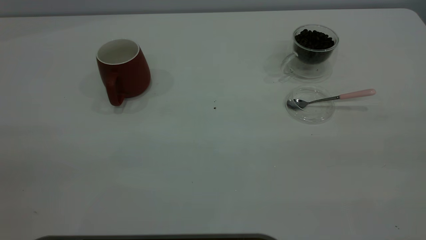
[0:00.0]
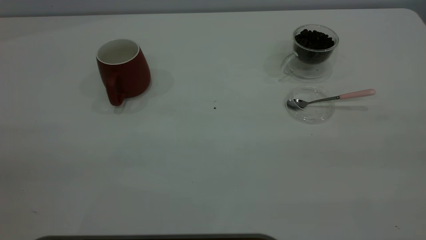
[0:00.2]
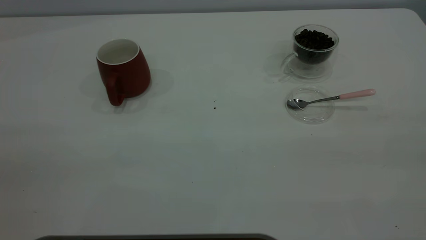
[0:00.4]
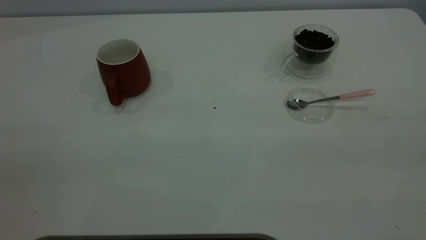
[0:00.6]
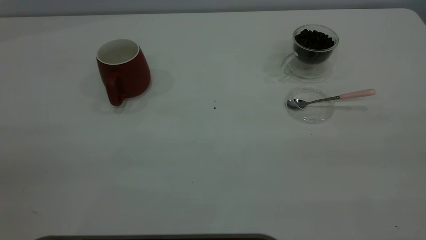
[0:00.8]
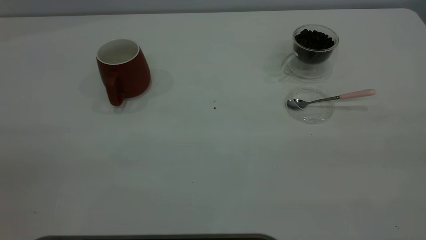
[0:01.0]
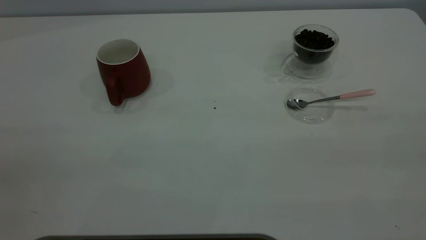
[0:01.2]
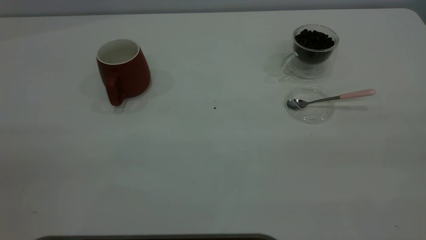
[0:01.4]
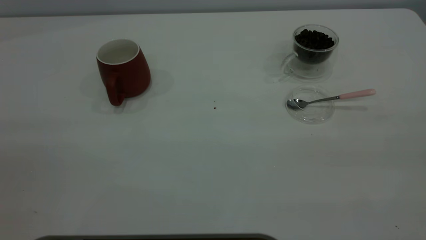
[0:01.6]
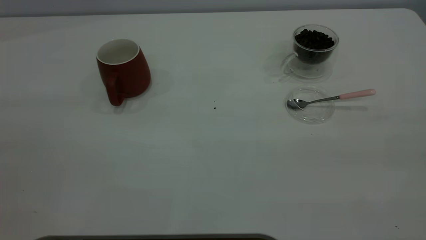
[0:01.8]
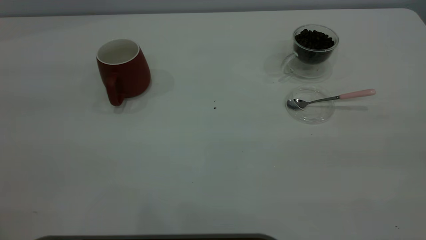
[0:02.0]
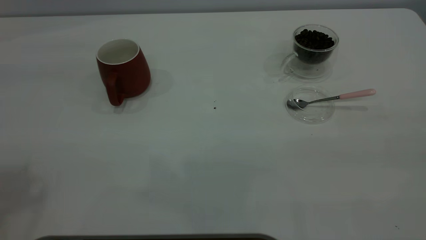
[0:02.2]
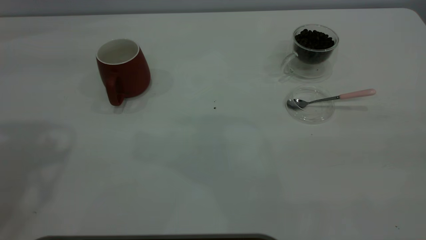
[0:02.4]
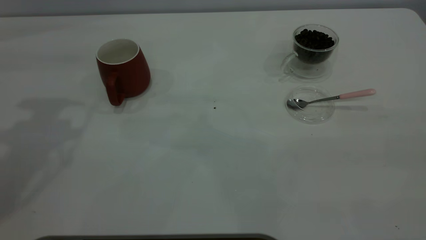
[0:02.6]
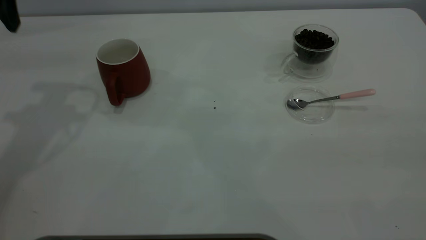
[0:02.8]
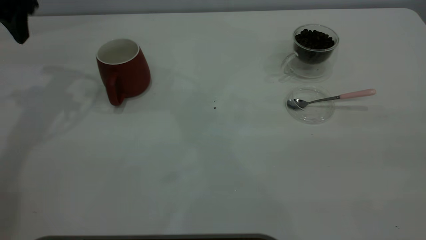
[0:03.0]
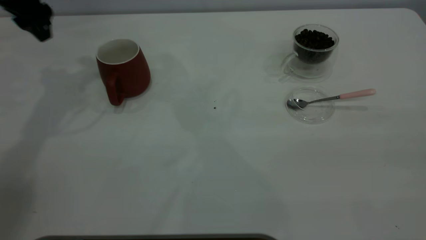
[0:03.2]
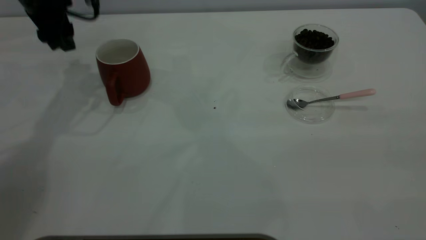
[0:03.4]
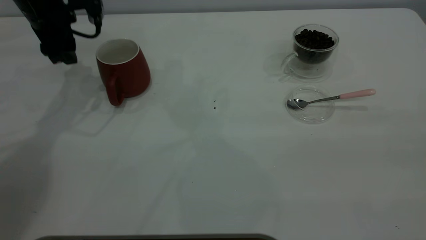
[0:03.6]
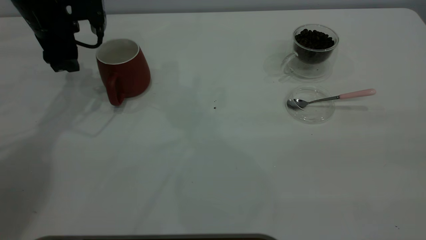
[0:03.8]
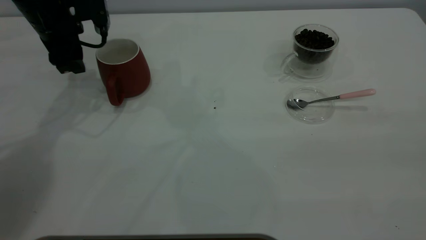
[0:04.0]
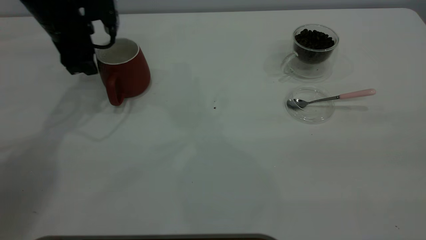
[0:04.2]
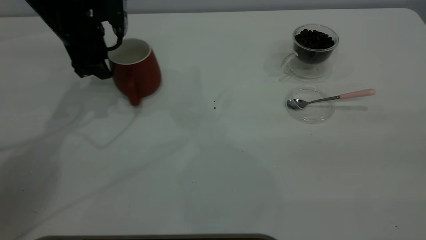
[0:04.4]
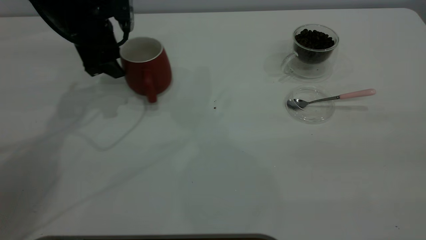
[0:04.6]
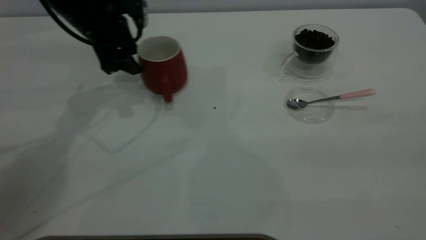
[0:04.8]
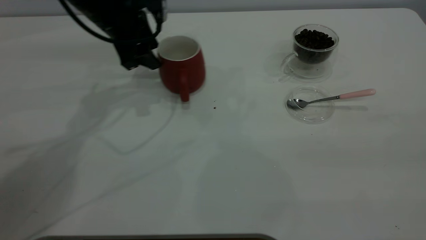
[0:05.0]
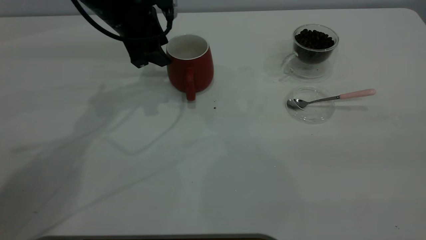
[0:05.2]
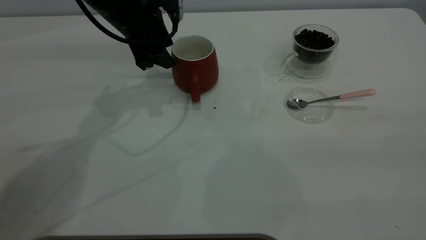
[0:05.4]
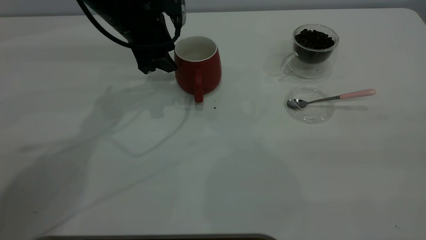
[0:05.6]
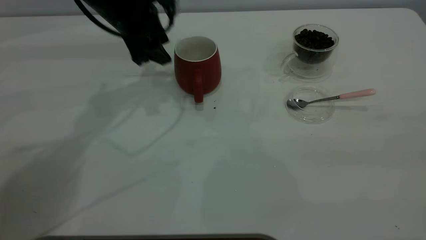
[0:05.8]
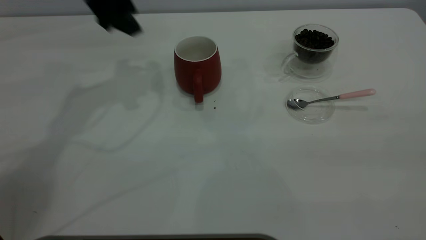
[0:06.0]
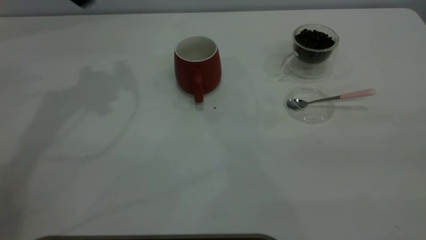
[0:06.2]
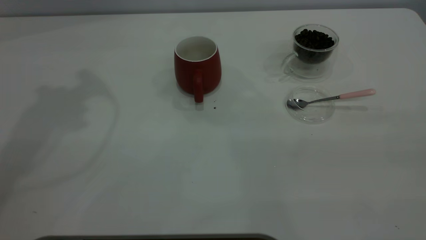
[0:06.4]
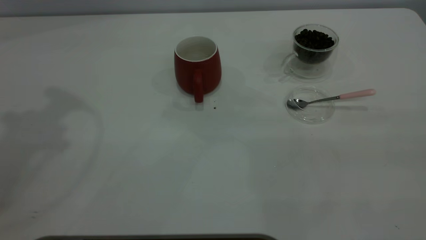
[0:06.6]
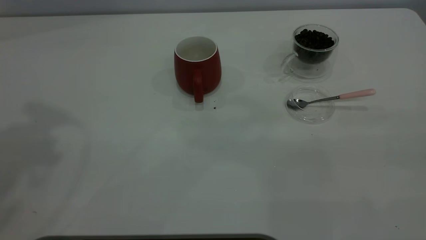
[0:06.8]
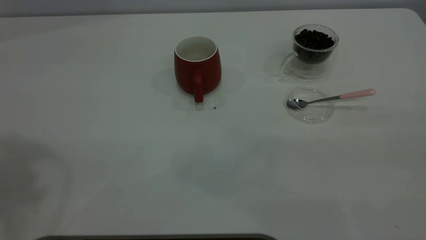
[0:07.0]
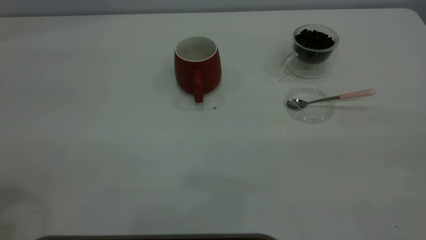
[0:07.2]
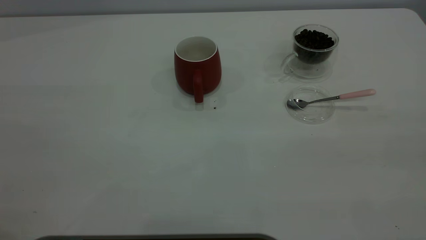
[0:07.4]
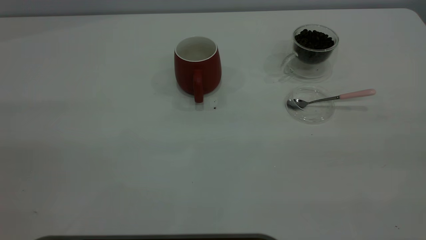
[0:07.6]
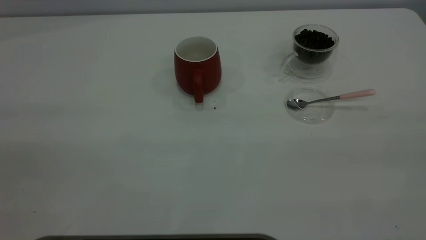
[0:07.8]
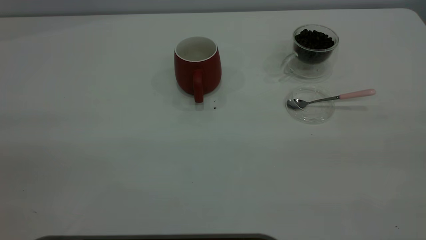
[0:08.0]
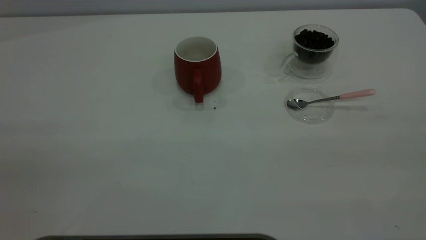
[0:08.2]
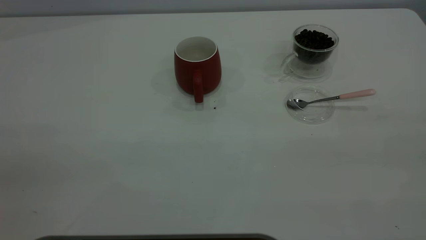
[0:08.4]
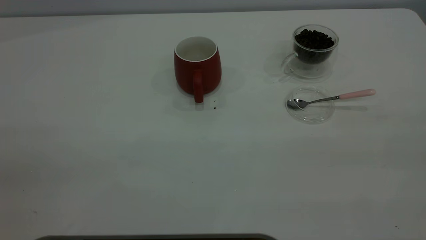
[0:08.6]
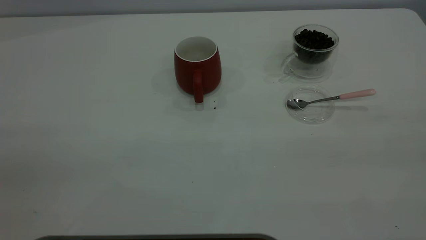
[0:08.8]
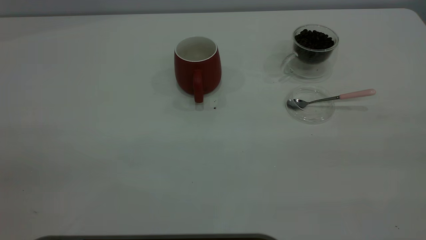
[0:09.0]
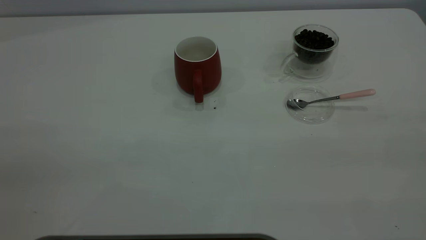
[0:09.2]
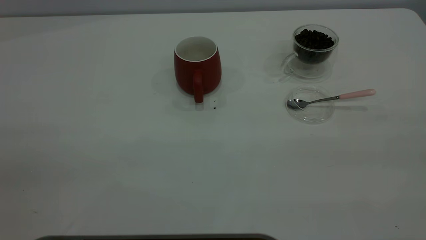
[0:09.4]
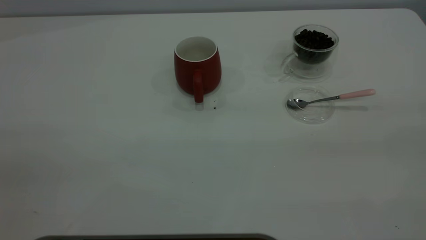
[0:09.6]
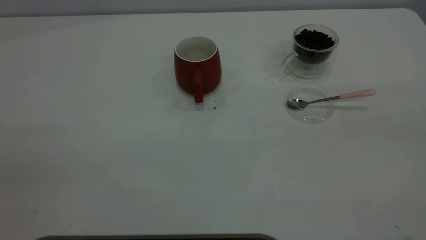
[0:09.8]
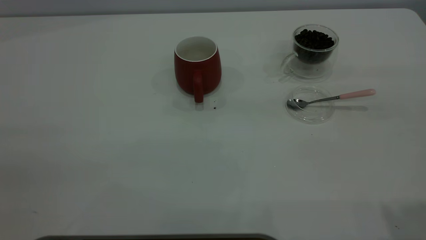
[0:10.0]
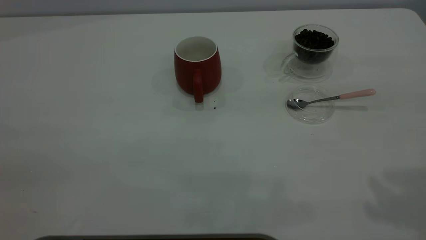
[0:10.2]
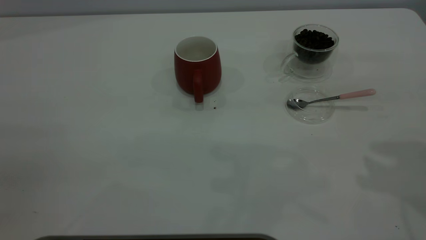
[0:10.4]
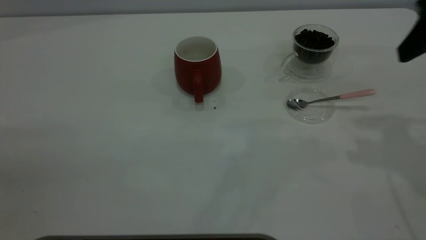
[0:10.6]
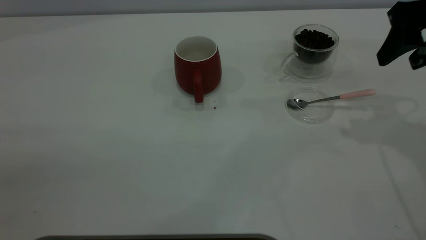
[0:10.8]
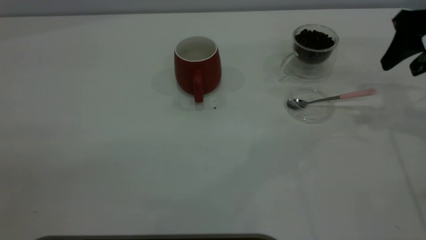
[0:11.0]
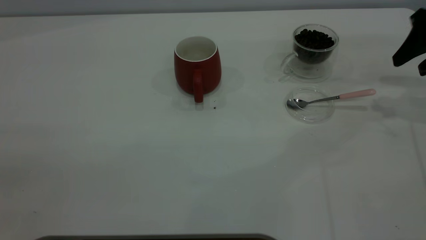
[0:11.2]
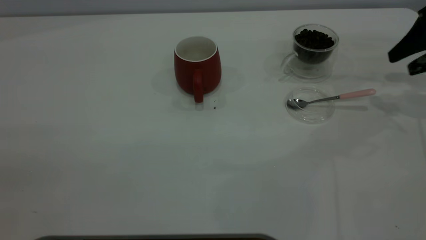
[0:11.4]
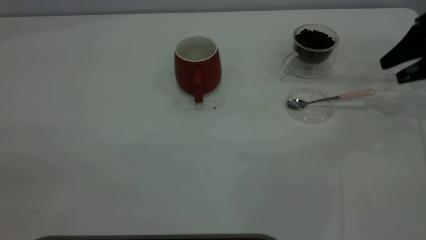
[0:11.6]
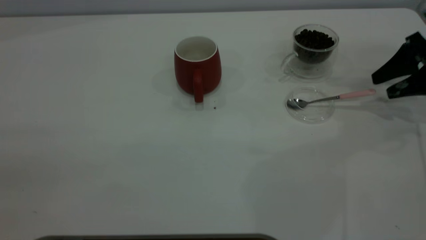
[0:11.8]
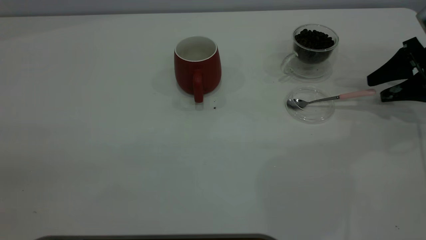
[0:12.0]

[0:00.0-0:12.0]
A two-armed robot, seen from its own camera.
Task of the whole recording: the left gripper place the red cup in the center of the table, the right gripper take the pink spoon from the cup lid and scoop out the coffee beans from the coffee cup and put them into the red cup, the right gripper put the spoon back into the cup lid.
Step, 0:00.0 to 0:05.8: Move the cup to the center of view.
0:01.6 to 0:03.0: The left gripper travels forward by roughly 40 cm.
0:03.0 to 0:04.4: The left gripper is displaced downward and to the right by roughly 10 cm.
0:04.4 to 0:06.0: The left gripper goes roughly 10 cm upward.
0:06.0 to 0:07.6: The left gripper goes about 40 cm backward.
0:10.4 to 0:12.0: The right gripper is displaced downward, forward and to the right by about 25 cm.

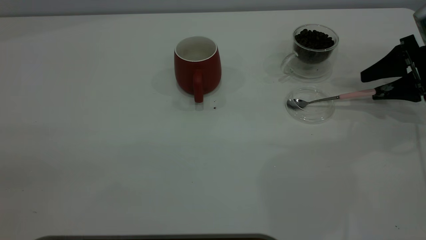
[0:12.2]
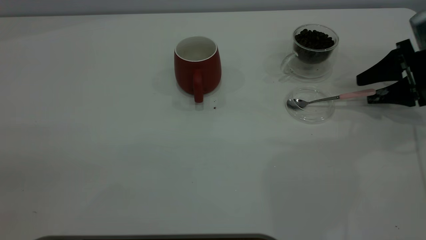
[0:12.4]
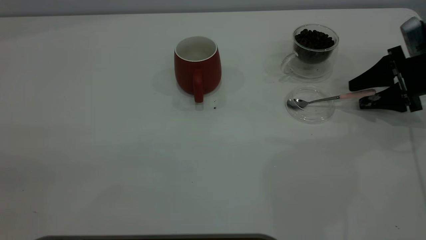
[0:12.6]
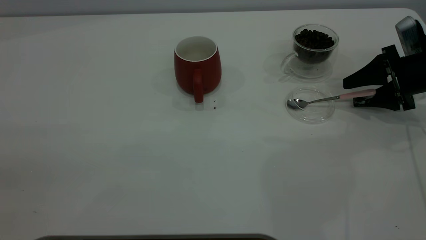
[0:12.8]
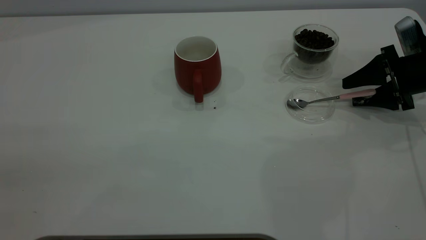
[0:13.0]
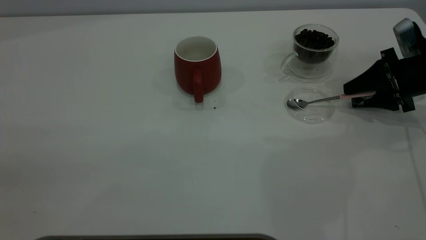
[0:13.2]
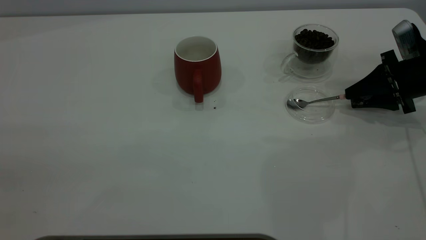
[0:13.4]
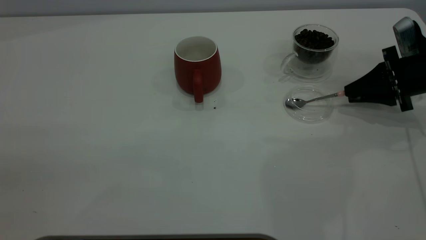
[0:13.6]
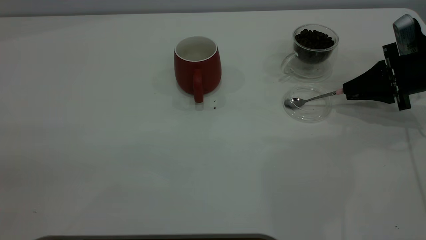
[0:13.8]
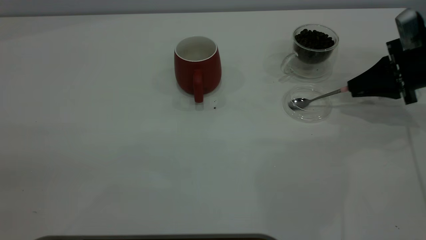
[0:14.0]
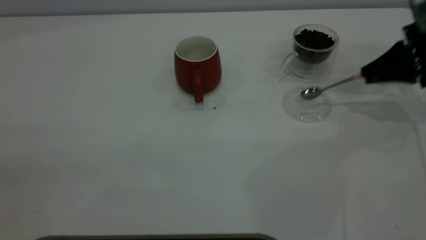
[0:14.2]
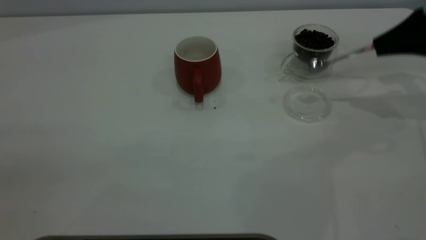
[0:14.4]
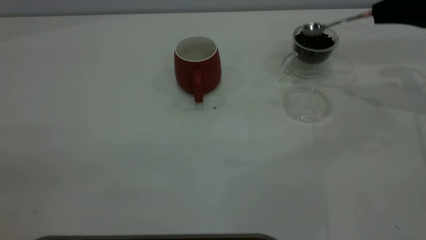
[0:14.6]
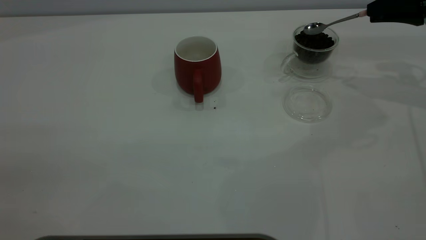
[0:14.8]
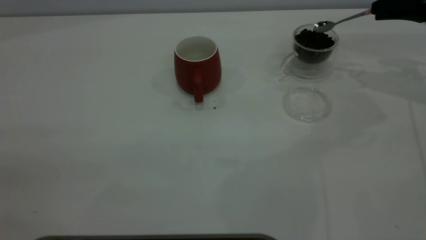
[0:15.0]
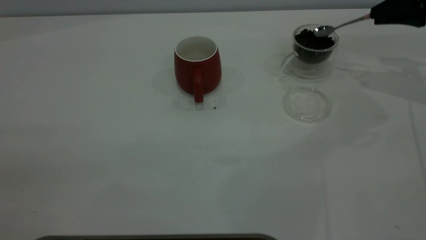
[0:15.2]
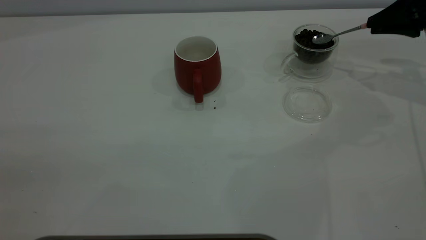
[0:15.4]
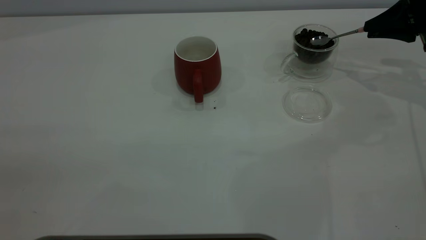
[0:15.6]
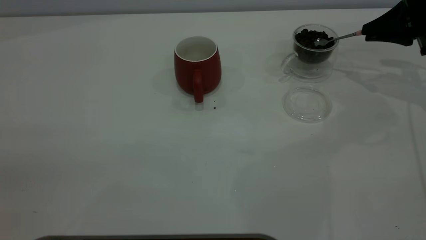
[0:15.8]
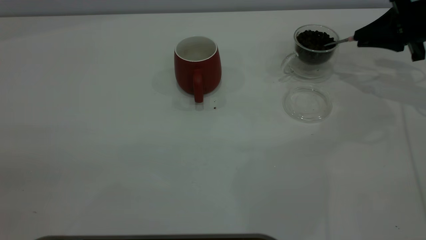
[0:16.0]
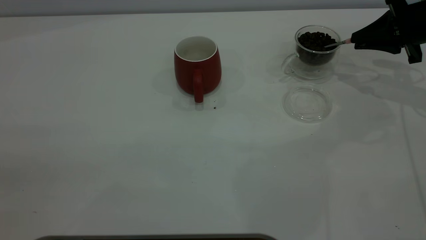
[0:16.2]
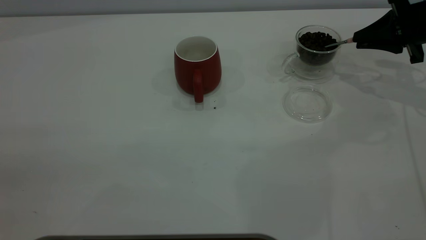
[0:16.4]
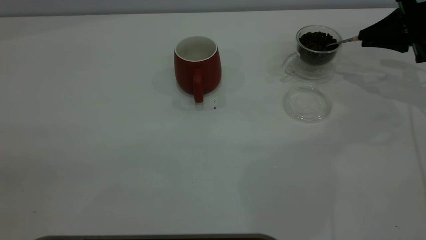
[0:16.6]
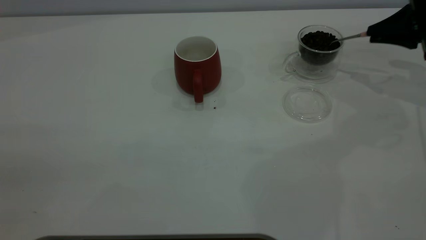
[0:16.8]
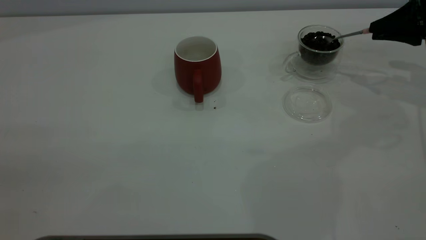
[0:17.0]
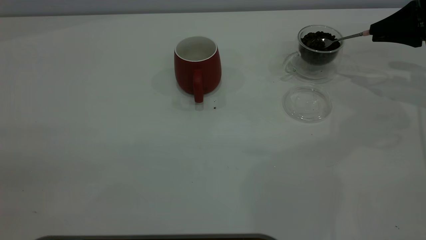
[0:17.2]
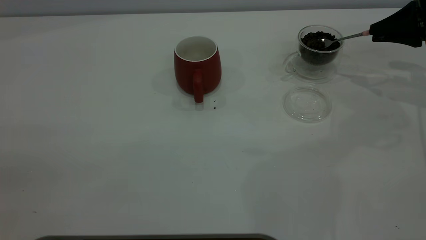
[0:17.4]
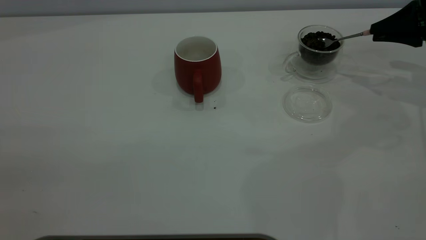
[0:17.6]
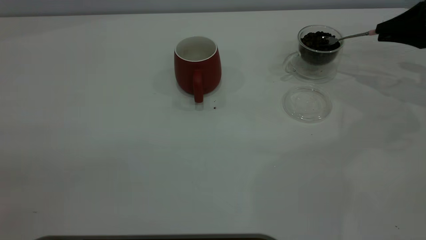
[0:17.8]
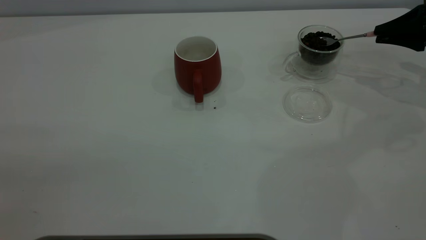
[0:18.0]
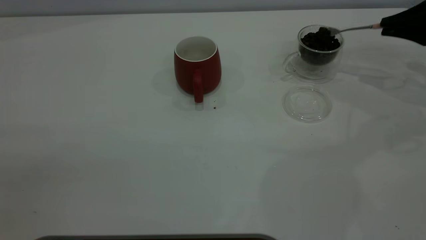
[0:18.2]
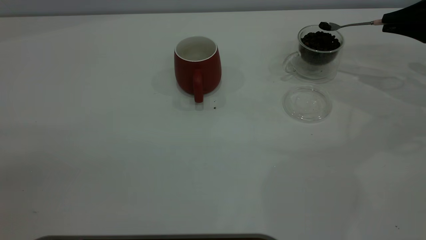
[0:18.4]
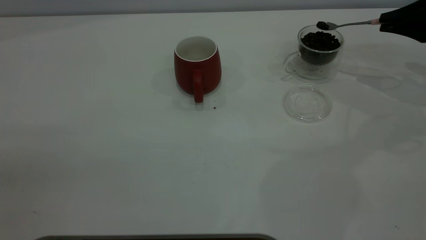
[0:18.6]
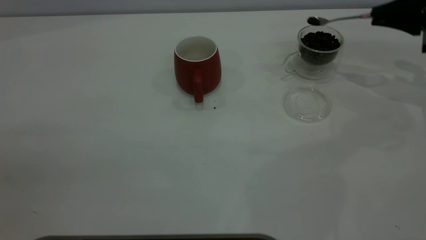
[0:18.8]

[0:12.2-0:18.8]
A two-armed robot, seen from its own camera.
Task of the whole recording: the left gripper place the red cup in the center of the table, the right gripper take the pink spoon from the cup lid and scoop out the coffee beans from the coffee cup and put them into the red cup, the right gripper put the spoon back into the cup lid.
Step, 0:12.2 to 0:14.2: Pick up the spoon.
0:12.2 to 0:13.8: The right gripper closes.
0:13.8 to 0:15.4: The right gripper is displaced upward by roughly 10 cm.
0:15.4 to 0:17.2: The grippers move only a little.
0:17.2 to 0:18.8: There are only small adjustments of the grippers.
